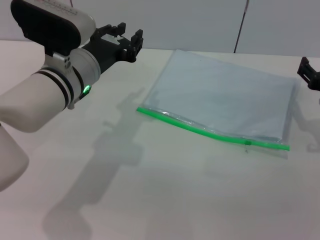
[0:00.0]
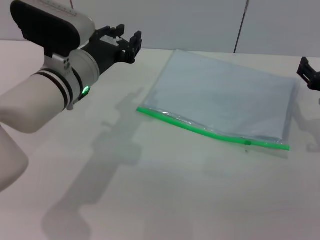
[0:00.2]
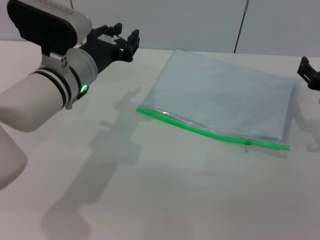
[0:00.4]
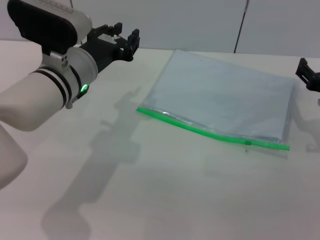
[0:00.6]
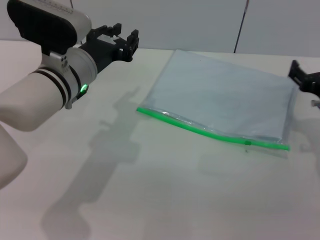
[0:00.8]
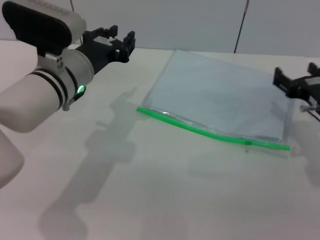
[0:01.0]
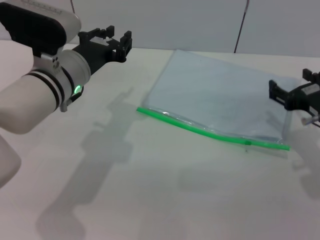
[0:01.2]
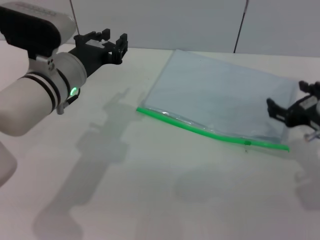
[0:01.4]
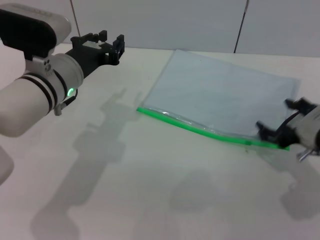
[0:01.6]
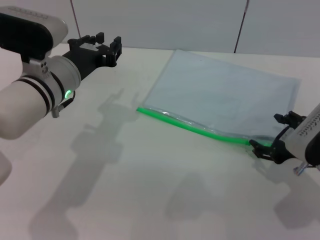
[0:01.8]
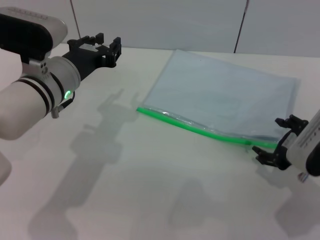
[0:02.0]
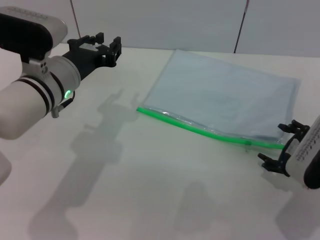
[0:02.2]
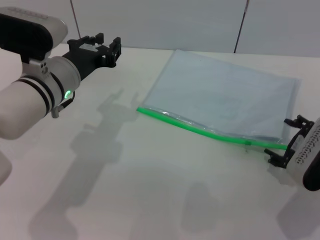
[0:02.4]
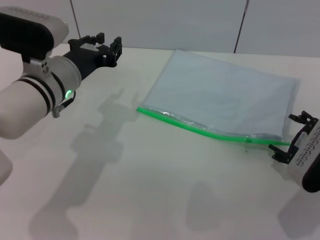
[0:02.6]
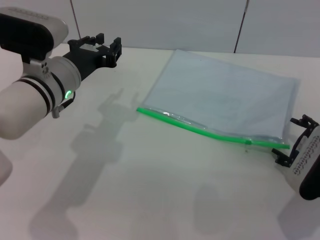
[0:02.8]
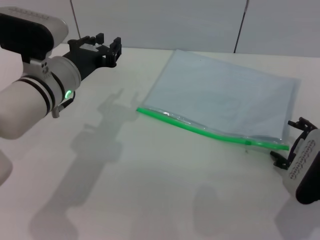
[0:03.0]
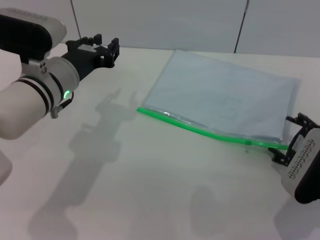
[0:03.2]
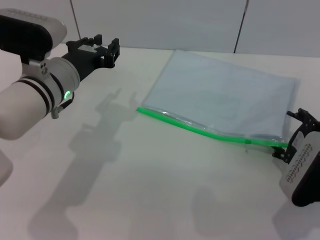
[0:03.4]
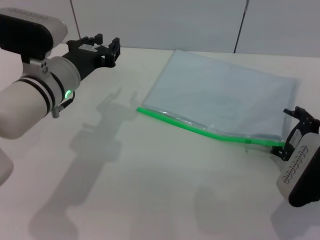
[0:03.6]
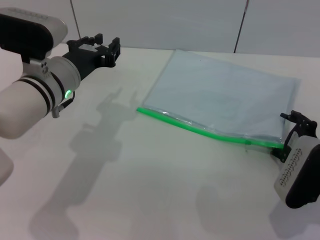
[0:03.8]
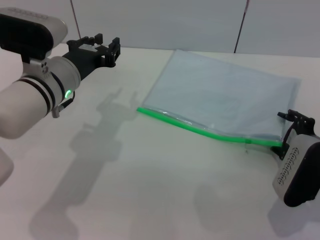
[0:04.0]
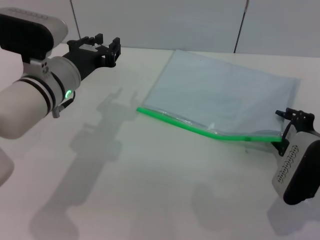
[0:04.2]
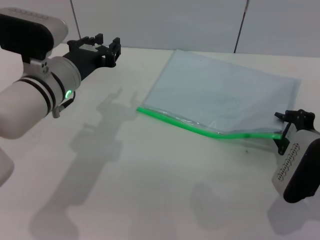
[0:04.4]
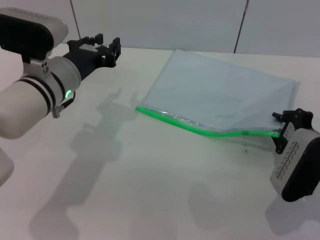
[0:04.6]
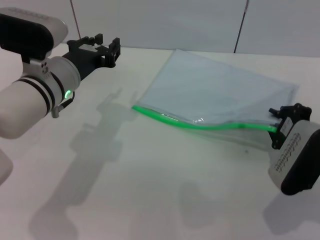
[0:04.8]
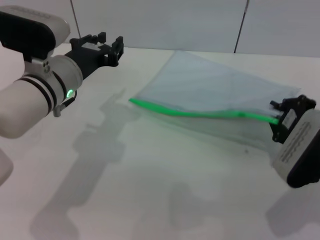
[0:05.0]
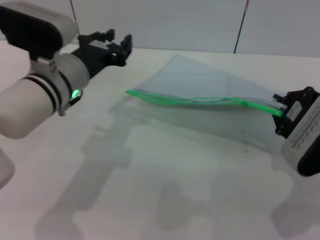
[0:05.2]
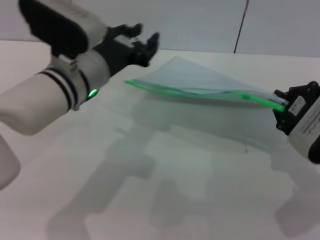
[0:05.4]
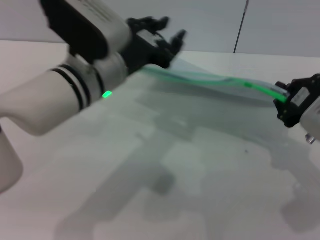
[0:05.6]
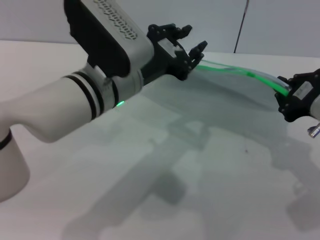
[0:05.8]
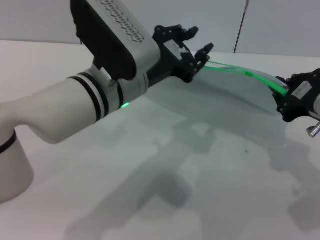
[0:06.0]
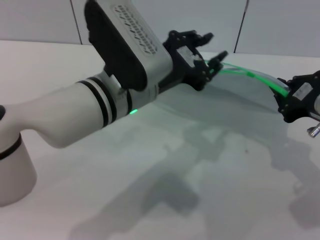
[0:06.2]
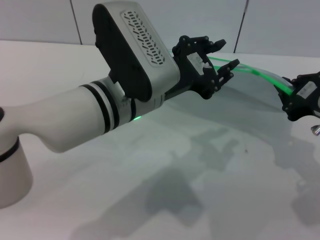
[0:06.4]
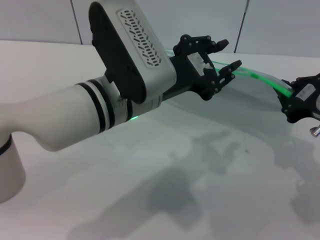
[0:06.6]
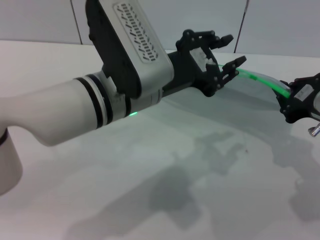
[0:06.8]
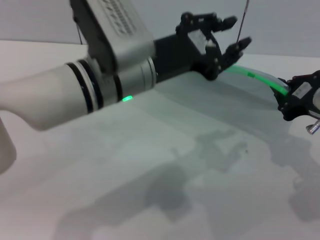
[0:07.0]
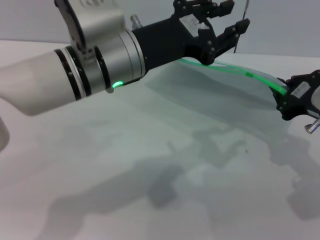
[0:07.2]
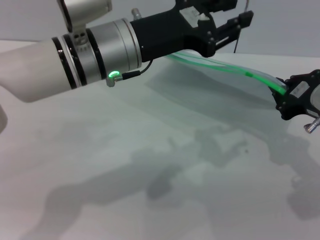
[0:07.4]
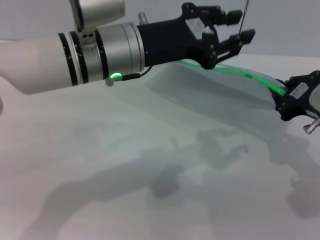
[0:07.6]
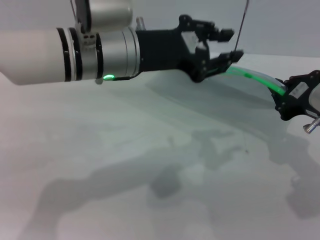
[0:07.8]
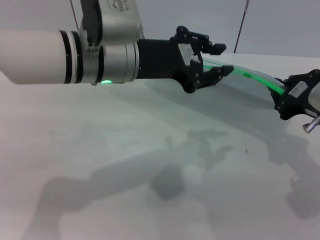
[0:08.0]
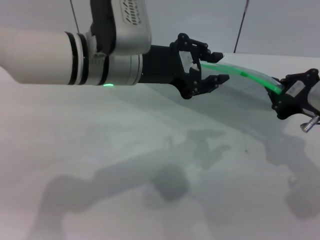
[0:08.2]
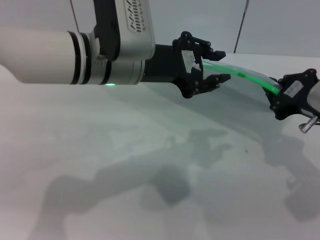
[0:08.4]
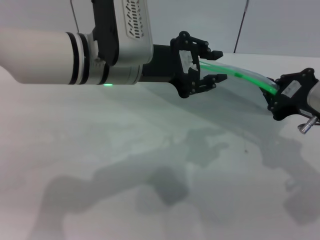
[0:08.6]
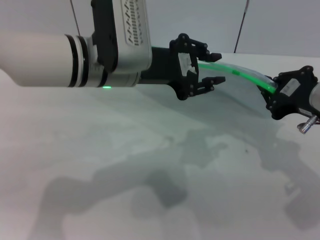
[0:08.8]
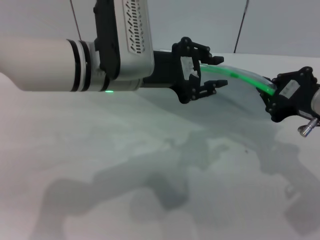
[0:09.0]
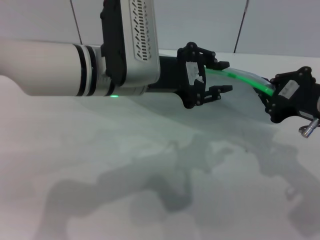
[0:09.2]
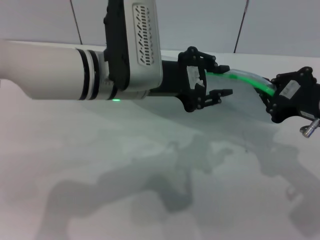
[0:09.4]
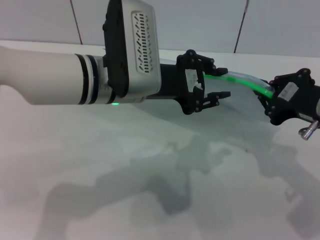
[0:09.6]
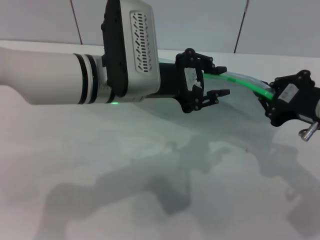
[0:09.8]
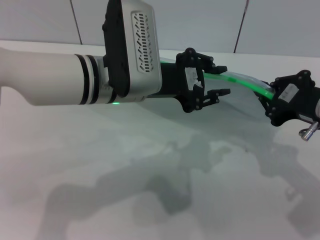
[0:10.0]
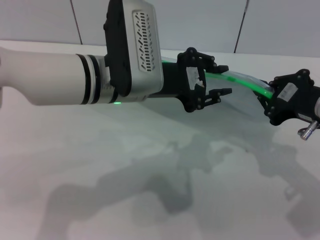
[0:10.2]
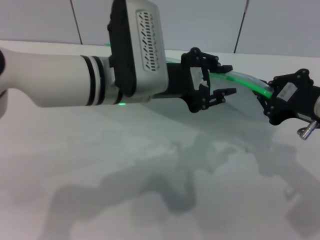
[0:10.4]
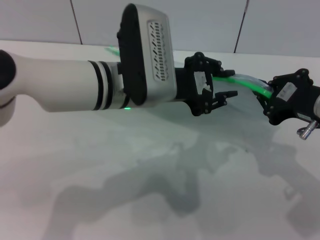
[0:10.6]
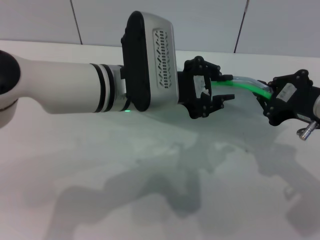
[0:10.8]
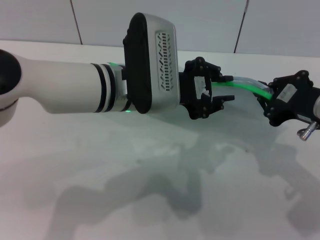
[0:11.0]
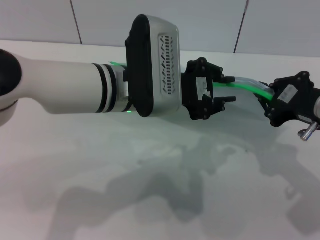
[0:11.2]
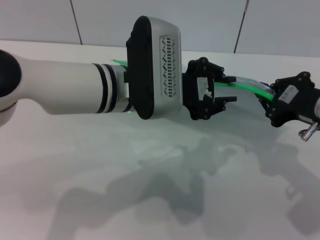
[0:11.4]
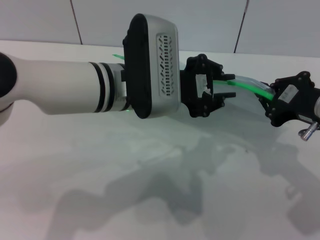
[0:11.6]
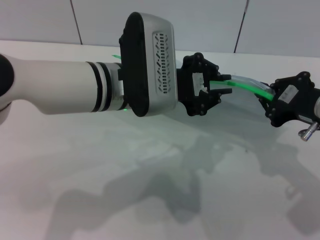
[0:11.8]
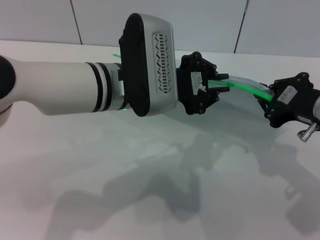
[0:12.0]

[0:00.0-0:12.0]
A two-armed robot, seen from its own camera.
Step, 0:00.0 to 0:05.2: Pick up the transparent plastic bag with the right gripper.
0:00.0 to 0:01.6: The right gripper ends up some 5 cm from where it was.
0:03.0 to 0:04.4: The right gripper closes its fingers.
0:04.4 to 0:06.0: The left gripper heads to the right, covering some 10 cm, while the right gripper is displaced upward by roughly 10 cm, and closes.
0:09.0 to 0:12.0: The grippers make only small movements.

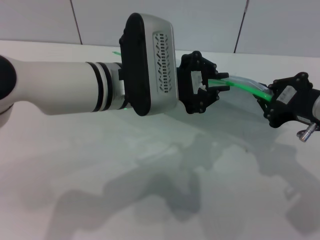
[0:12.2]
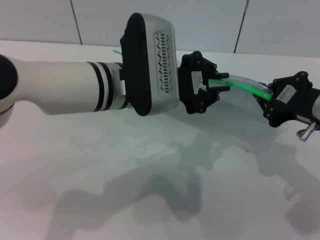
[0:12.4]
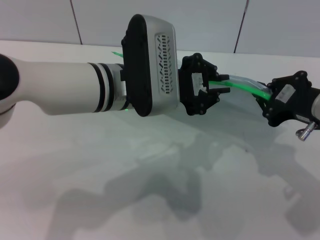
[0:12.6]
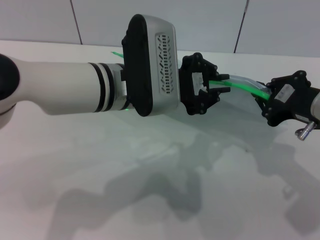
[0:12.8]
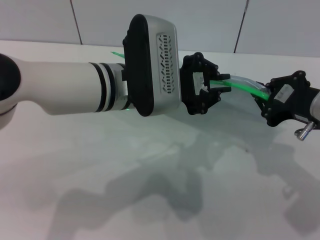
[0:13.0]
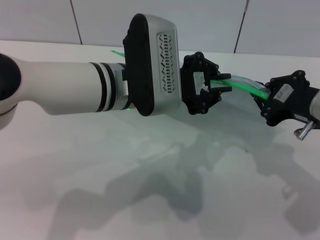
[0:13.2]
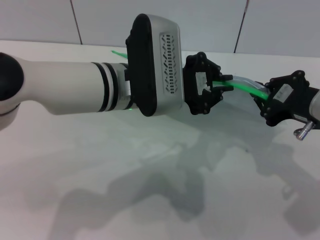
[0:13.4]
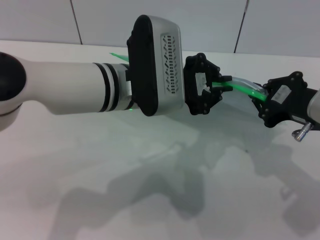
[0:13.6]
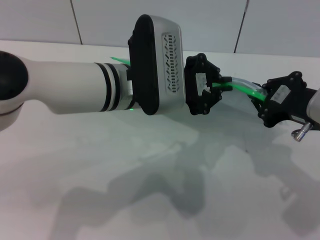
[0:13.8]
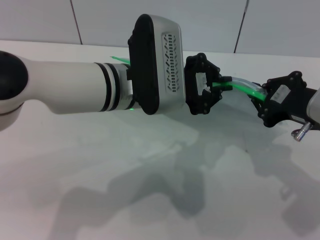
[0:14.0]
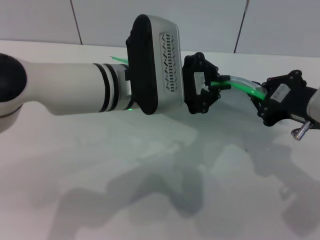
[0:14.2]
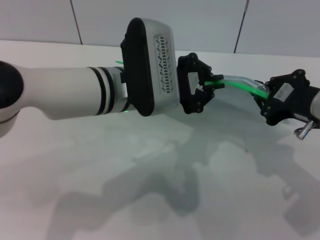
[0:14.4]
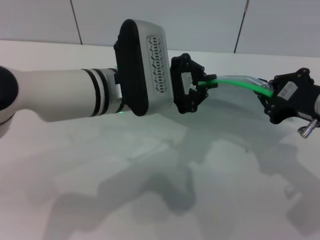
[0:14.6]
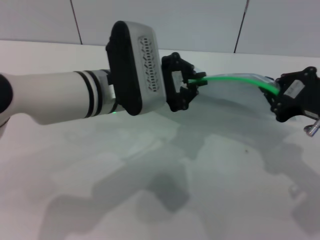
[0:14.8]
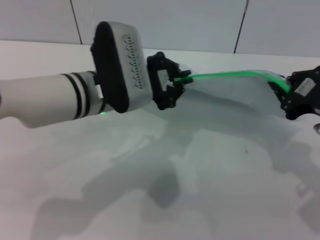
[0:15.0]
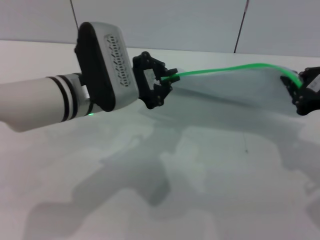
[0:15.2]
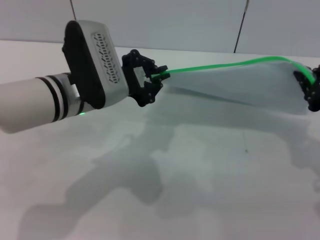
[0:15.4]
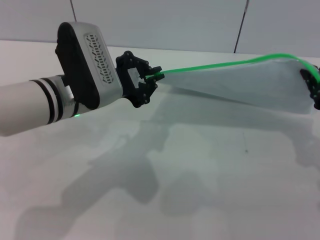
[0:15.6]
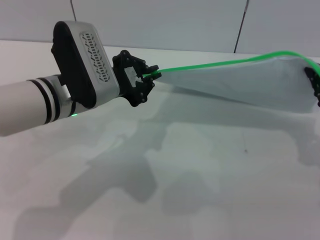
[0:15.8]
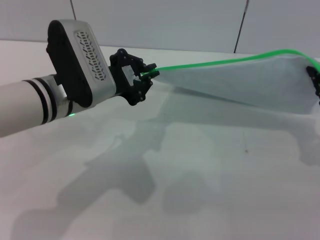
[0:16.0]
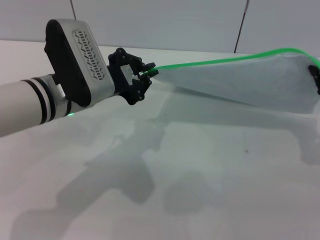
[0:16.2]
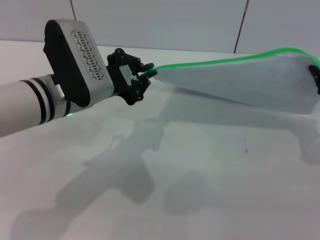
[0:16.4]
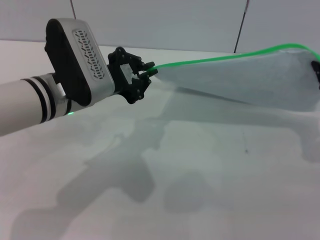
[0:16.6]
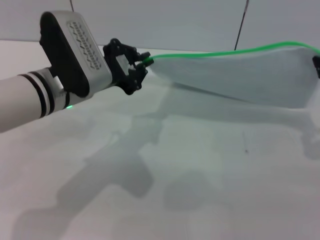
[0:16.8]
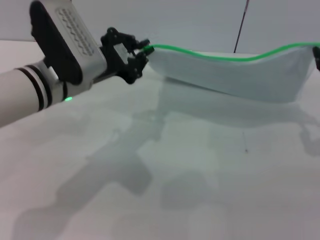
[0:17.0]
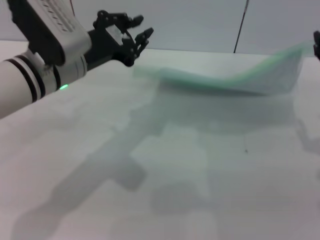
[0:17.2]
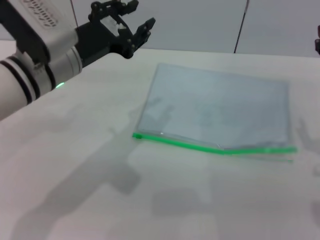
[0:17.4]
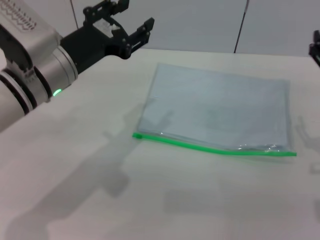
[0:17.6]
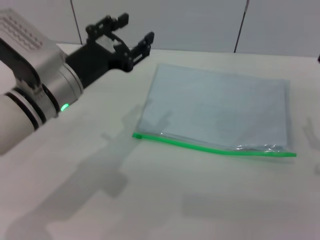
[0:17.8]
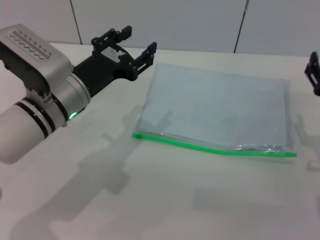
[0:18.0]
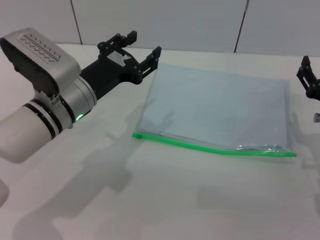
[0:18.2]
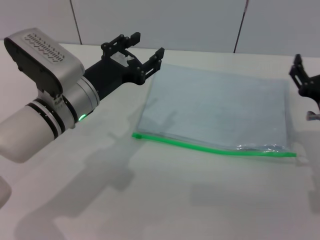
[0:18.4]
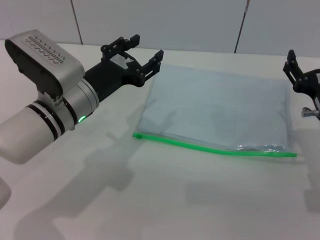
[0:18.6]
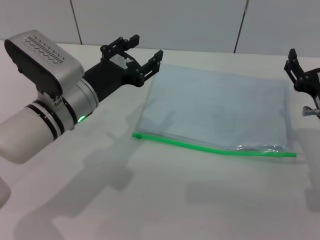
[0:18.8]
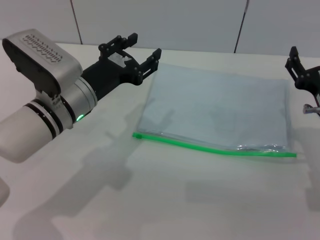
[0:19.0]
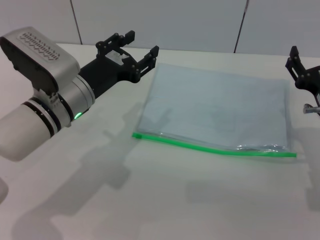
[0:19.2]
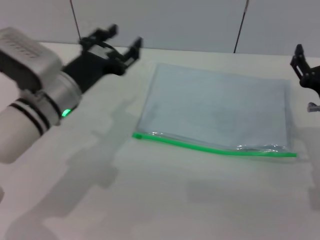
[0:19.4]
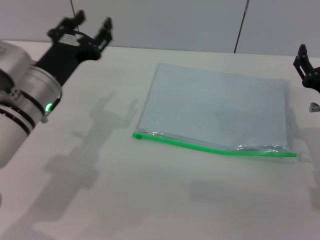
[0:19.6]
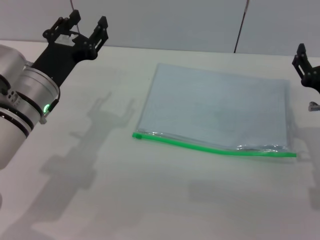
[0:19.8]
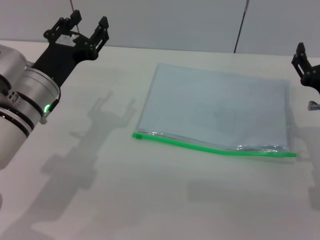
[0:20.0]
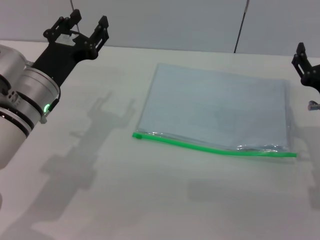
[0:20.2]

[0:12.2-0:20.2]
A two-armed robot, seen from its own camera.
Step, 0:12.2 to 0:17.0: Pulling up the zipper on the transparent plastic bag with the left gripper to close it.
Step, 0:17.2 to 0:17.8: Place the transparent plastic bag.
0:12.2 to 0:13.8: Both grippers stay about where they are.
0:13.8 to 0:15.4: The left gripper shifts about 5 cm to the left.
0:15.4 to 0:17.0: The grippers move only a little.
0:17.0 to 0:18.6: The right gripper moves downward, approximately 10 cm, and opens its fingers. The left gripper heads downward, covering roughly 5 cm, and opens.
0:18.6 to 0:20.2: The grippers move only a little.
